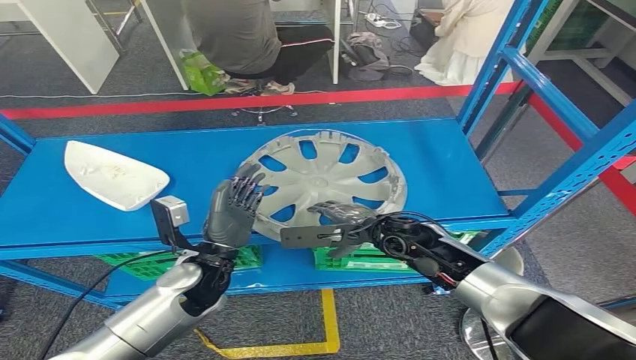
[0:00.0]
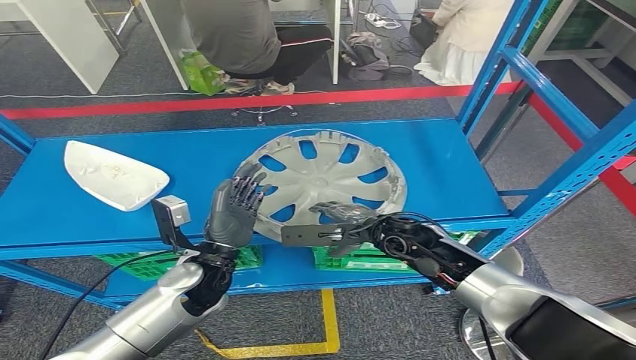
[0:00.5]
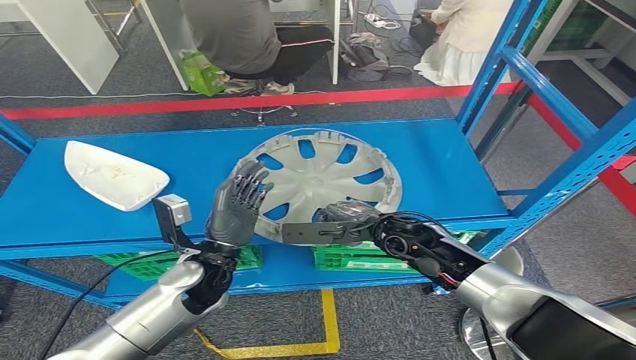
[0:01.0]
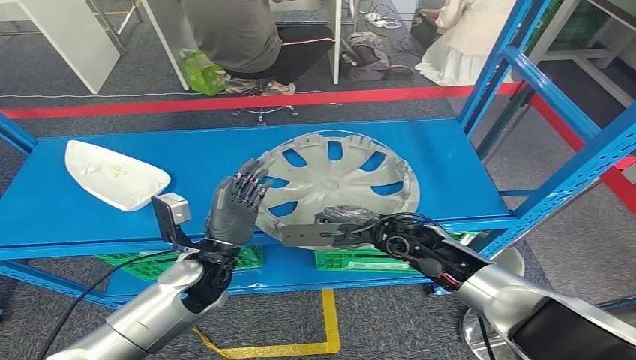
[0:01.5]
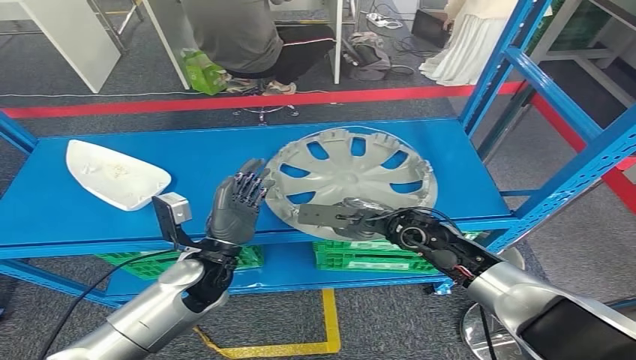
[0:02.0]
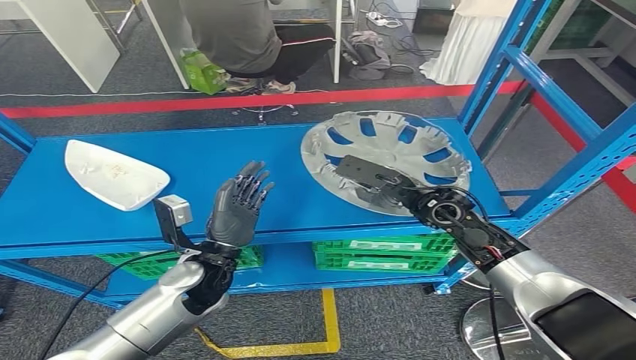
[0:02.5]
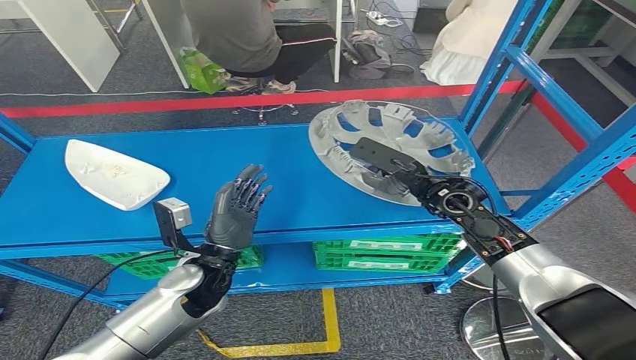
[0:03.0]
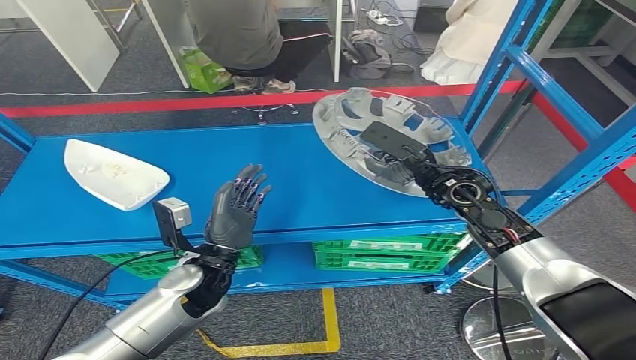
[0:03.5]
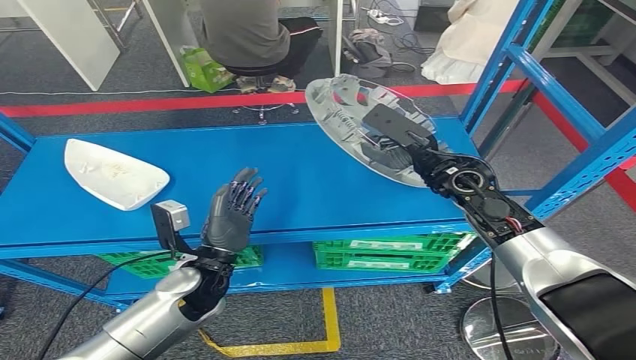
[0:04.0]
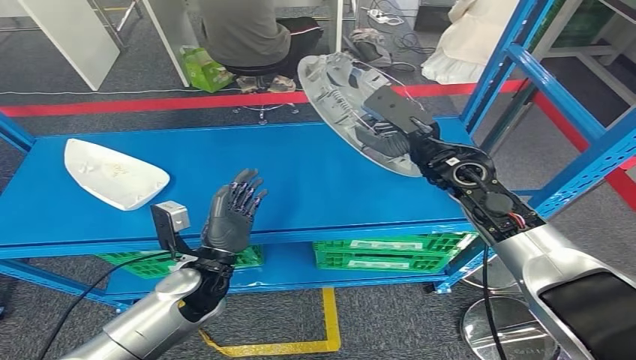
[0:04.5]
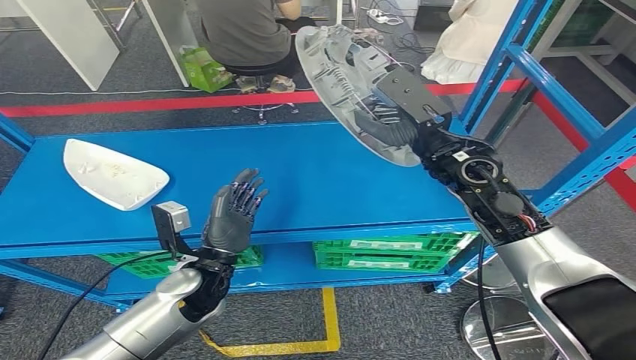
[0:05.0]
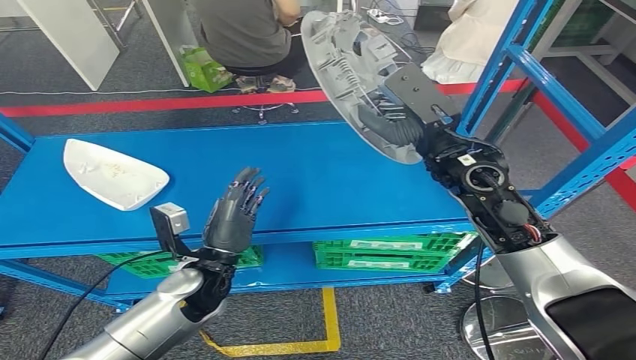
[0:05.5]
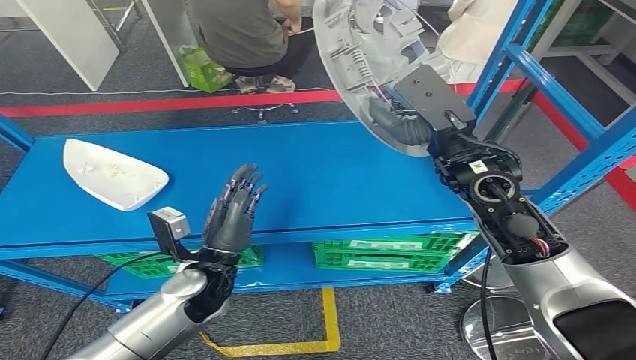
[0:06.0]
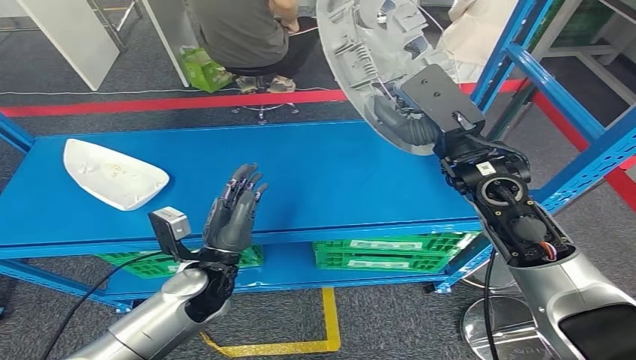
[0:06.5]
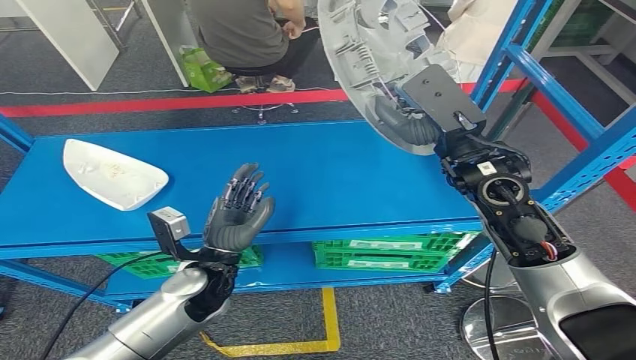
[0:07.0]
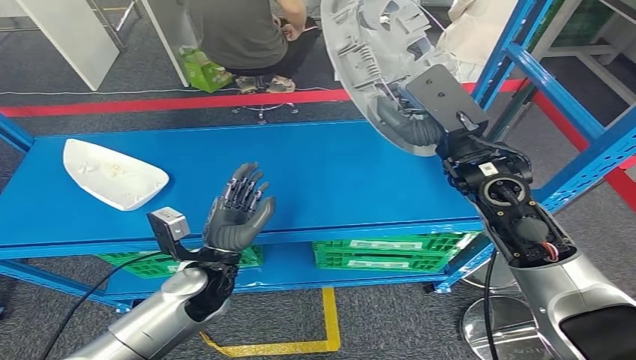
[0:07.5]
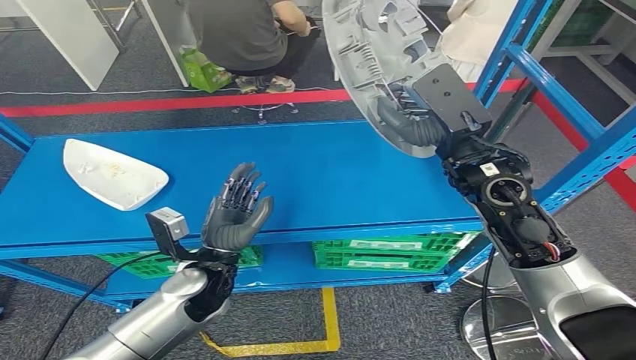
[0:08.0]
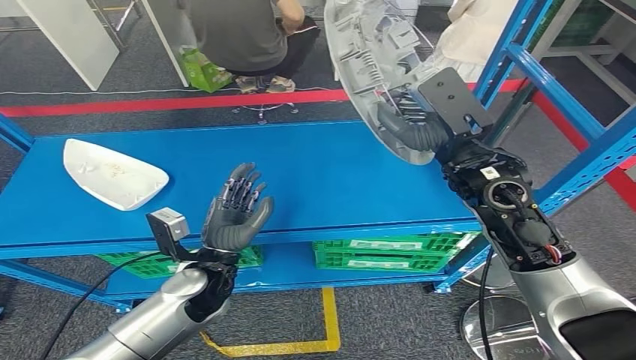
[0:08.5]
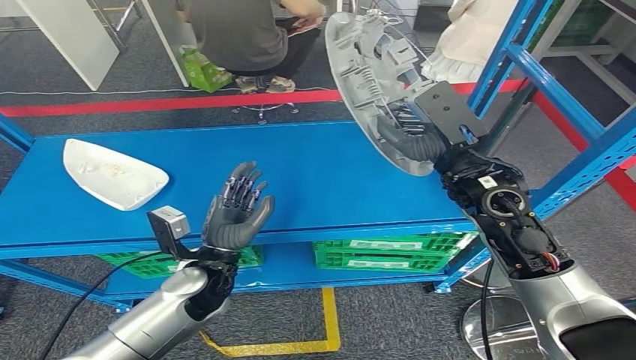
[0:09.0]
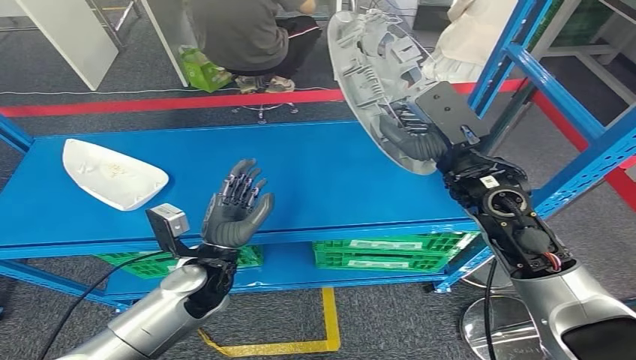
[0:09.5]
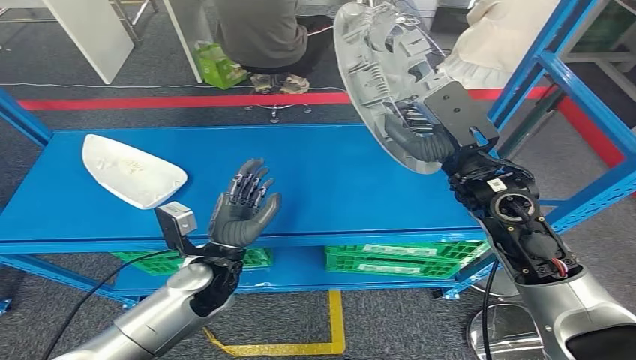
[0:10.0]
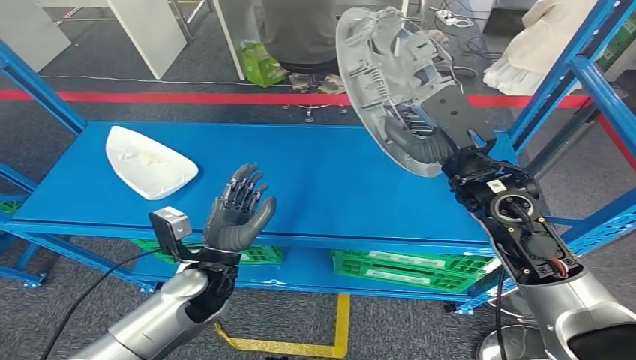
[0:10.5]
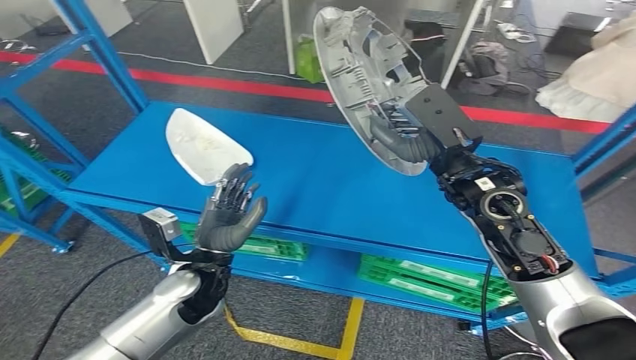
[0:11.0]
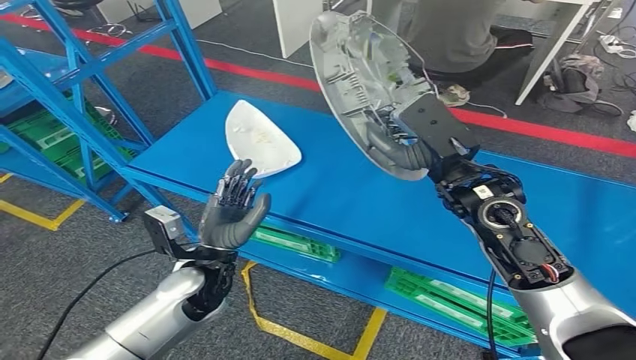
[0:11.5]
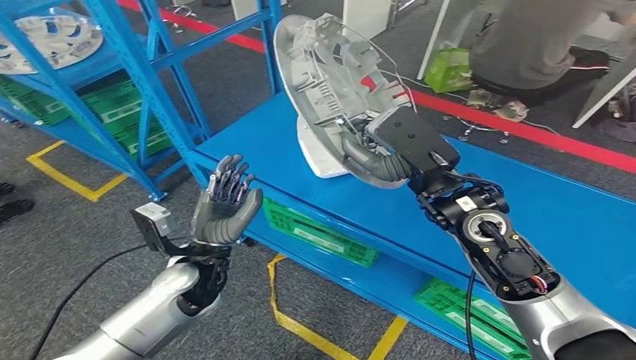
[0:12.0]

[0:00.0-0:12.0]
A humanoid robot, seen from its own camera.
Step, 0:00.0 to 0:03.5: Pick up the small component from the shelf.
0:00.0 to 0:02.0: The hands make only small movements.
0:04.0 to 0:06.0: The right hand moves upward, approximately 10 cm.
0:06.0 to 0:08.0: Both hands stay put.

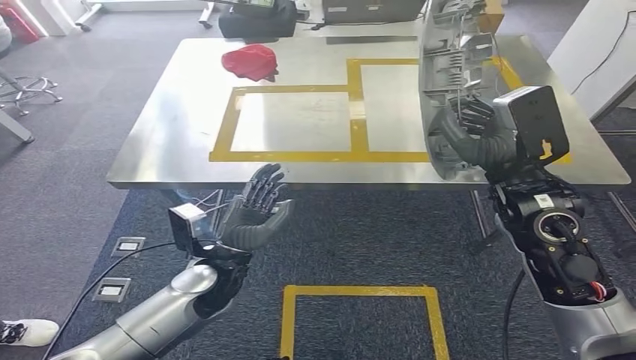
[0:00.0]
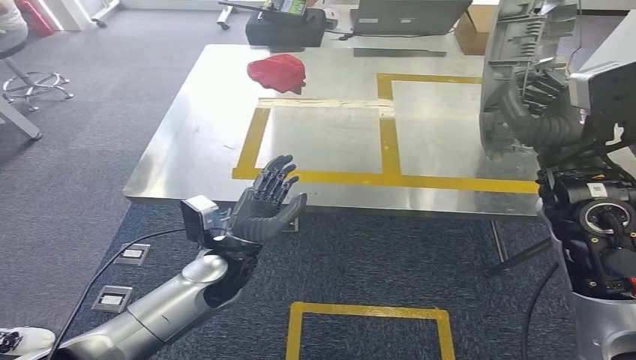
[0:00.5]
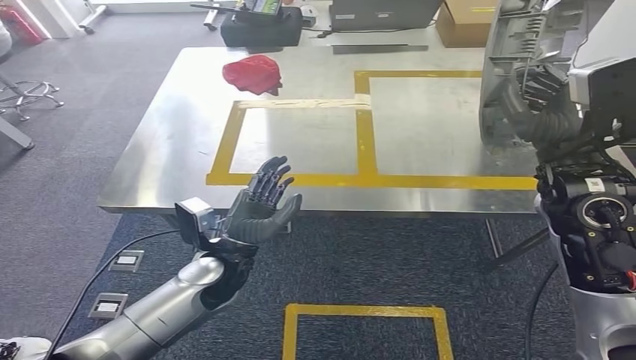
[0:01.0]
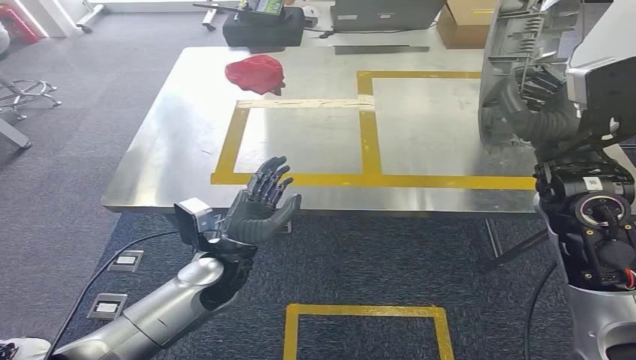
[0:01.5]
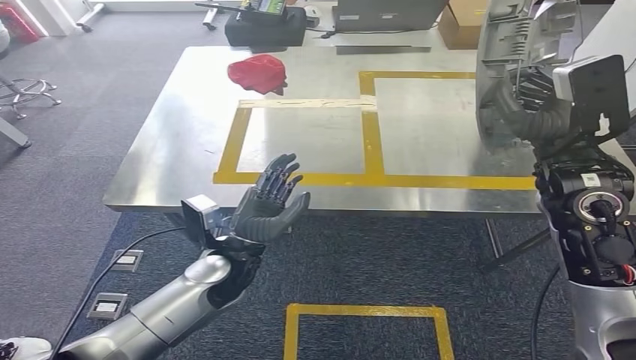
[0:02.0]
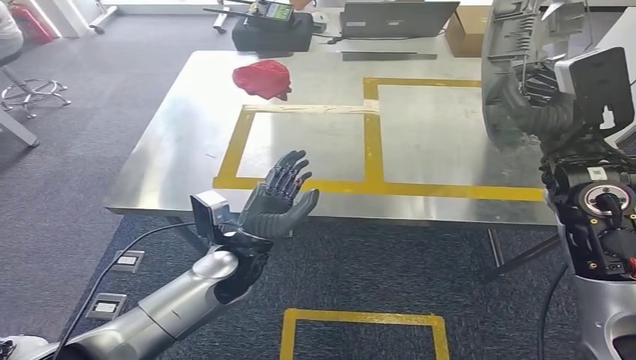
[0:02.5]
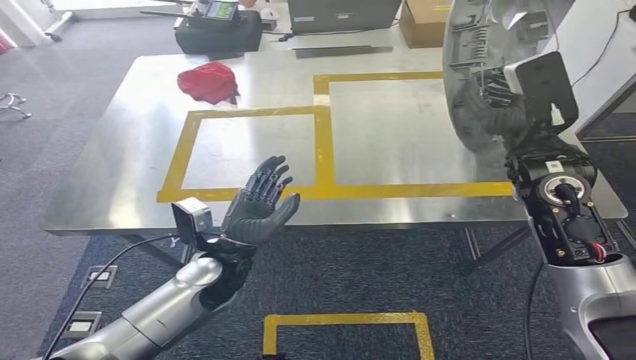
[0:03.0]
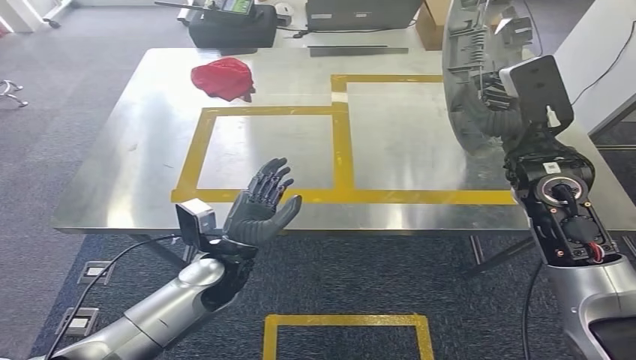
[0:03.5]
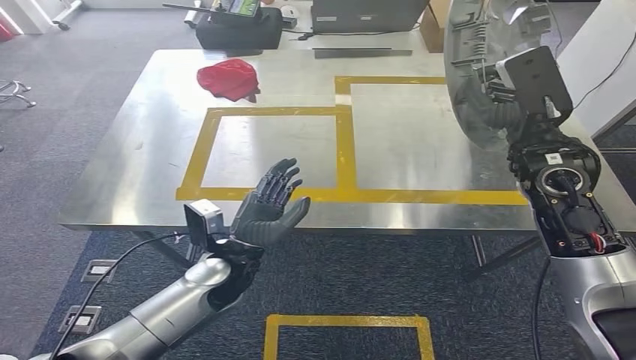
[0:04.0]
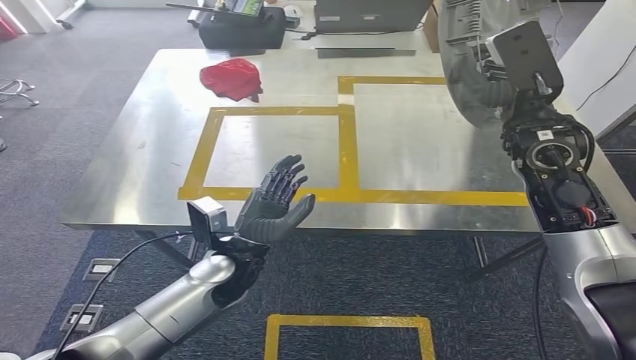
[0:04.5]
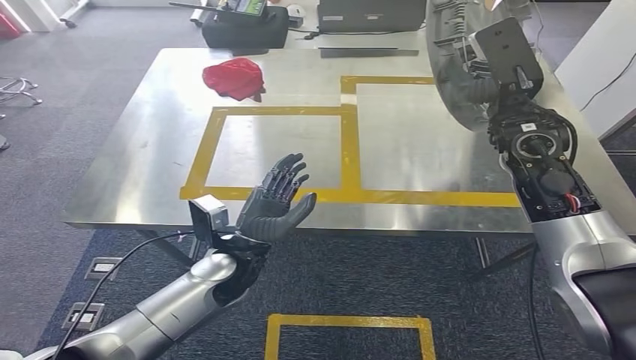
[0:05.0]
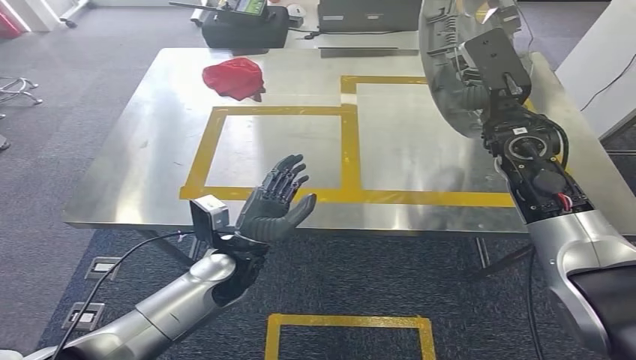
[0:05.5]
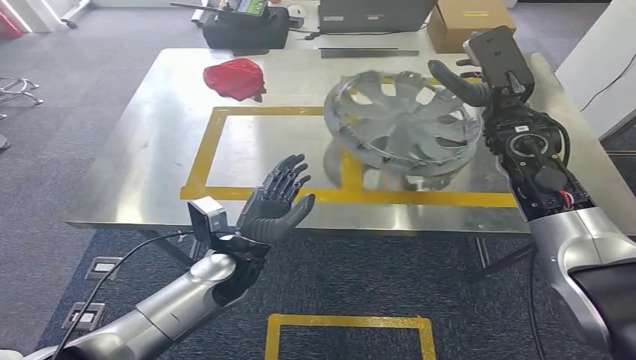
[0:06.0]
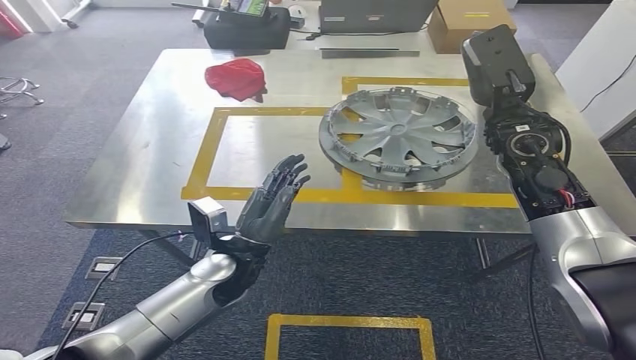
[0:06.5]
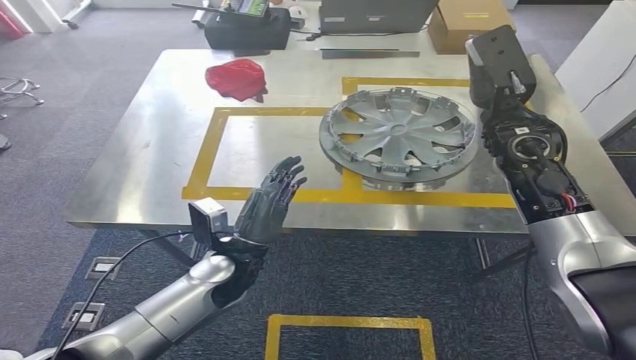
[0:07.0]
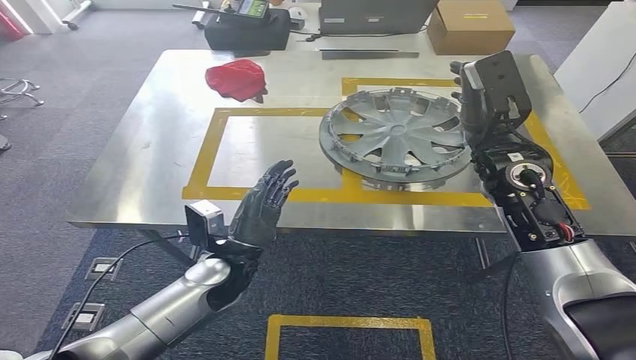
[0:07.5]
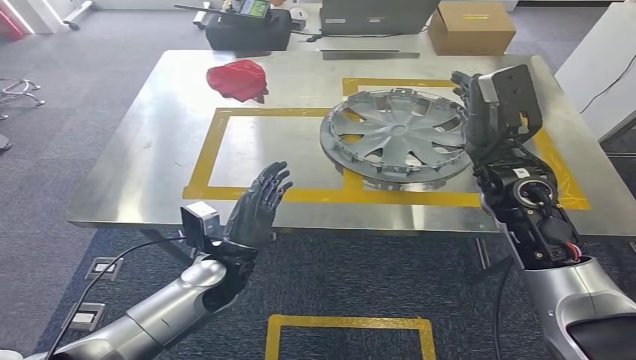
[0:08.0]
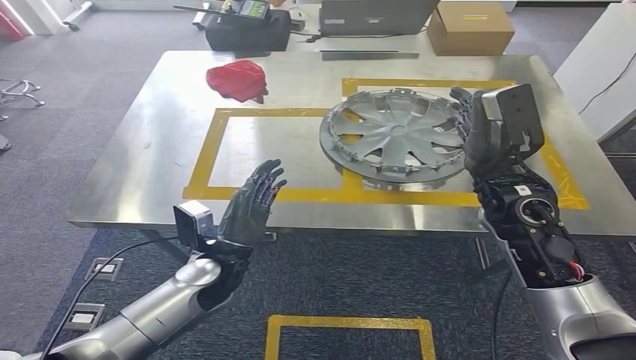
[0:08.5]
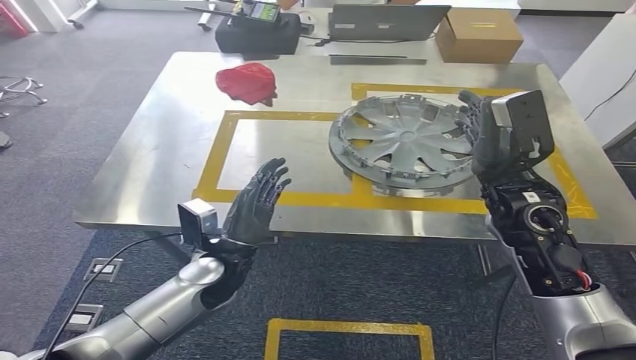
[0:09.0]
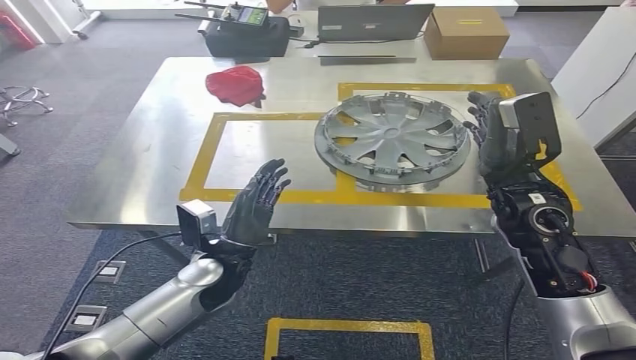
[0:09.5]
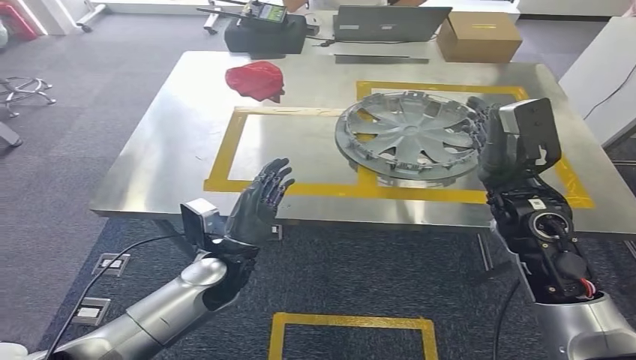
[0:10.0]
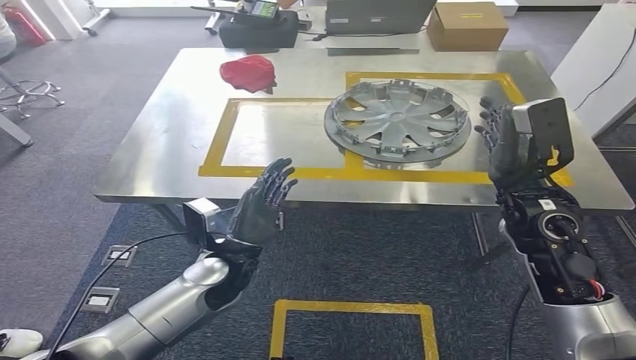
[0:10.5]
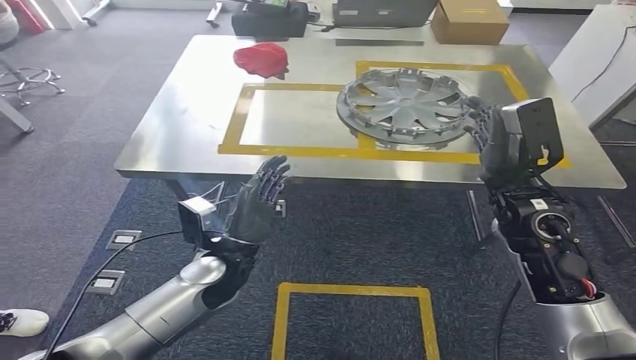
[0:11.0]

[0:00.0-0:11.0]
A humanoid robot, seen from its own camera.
Step, 0:00.0 to 0:03.0: Move the small component to the workbench.
Step, 0:03.5 to 0:09.5: Insert the small component into the corresponding slot on the workbench.
